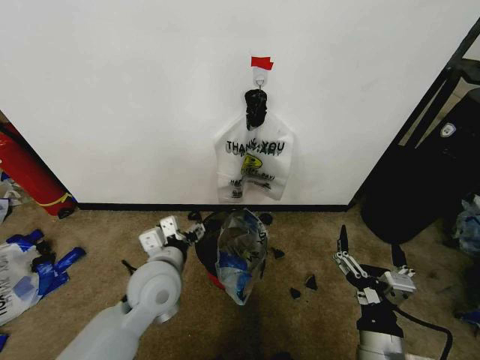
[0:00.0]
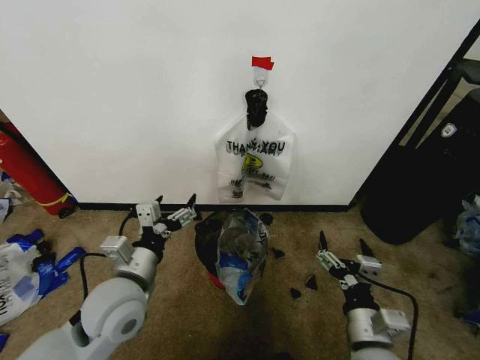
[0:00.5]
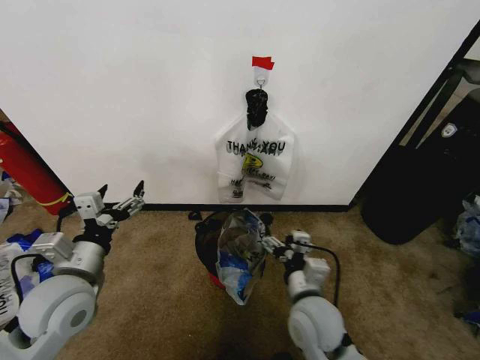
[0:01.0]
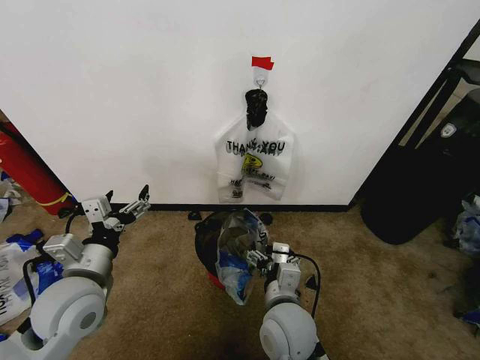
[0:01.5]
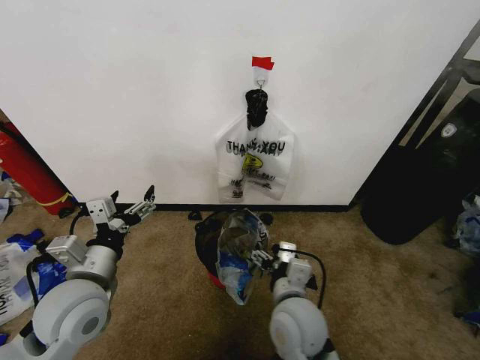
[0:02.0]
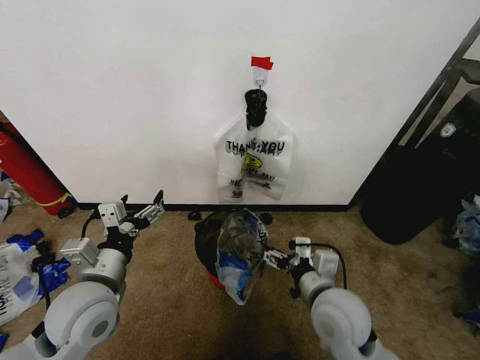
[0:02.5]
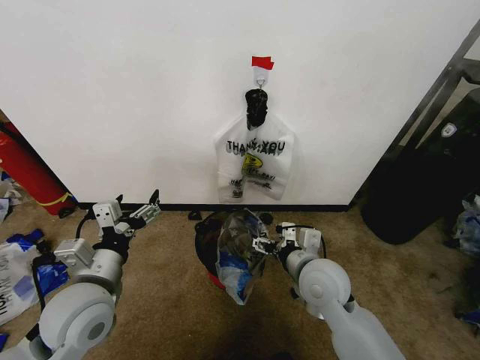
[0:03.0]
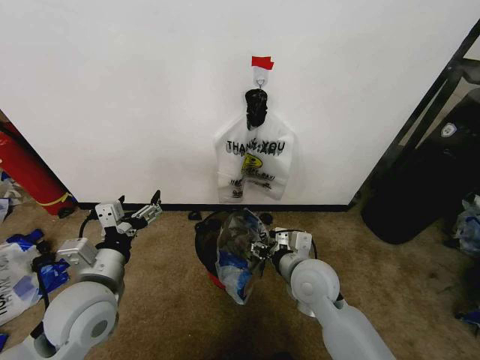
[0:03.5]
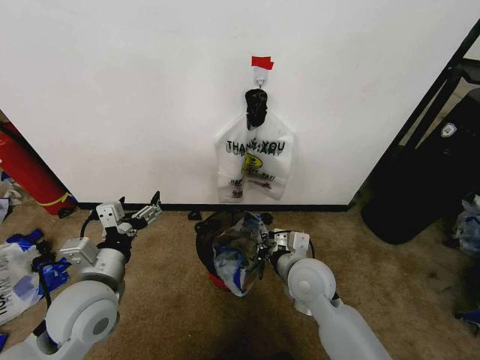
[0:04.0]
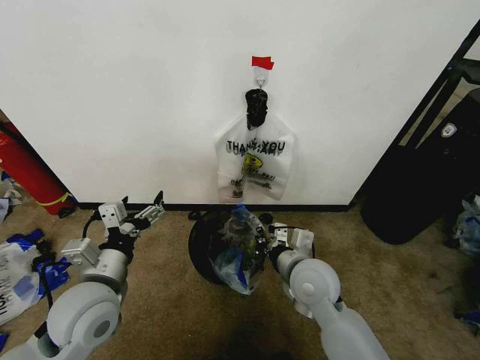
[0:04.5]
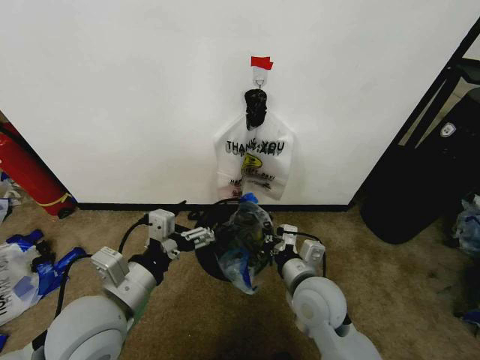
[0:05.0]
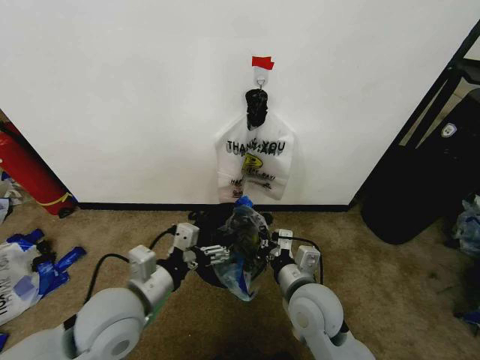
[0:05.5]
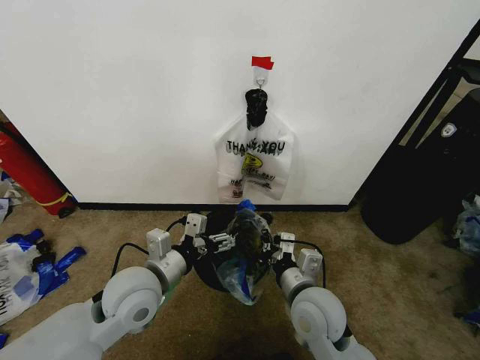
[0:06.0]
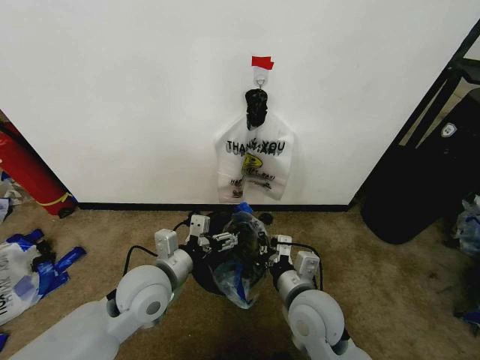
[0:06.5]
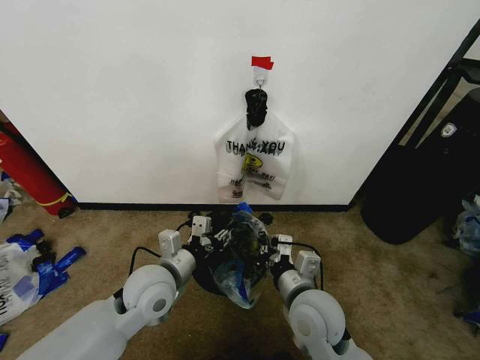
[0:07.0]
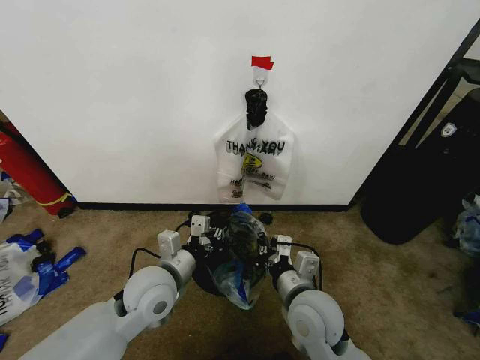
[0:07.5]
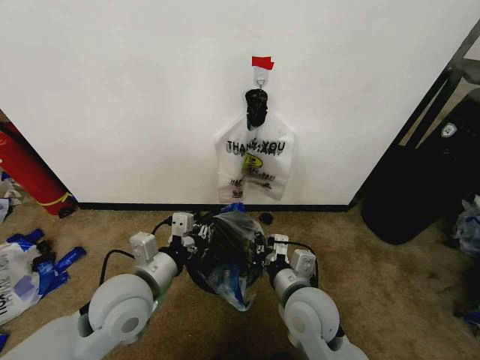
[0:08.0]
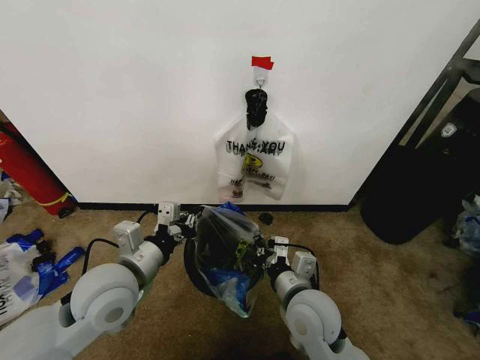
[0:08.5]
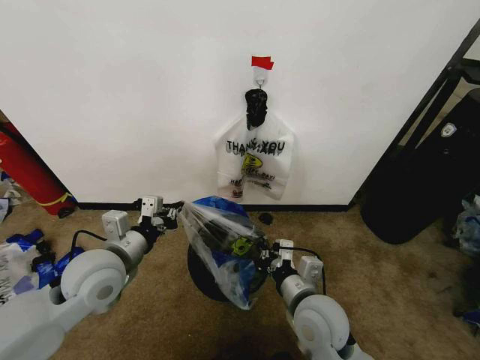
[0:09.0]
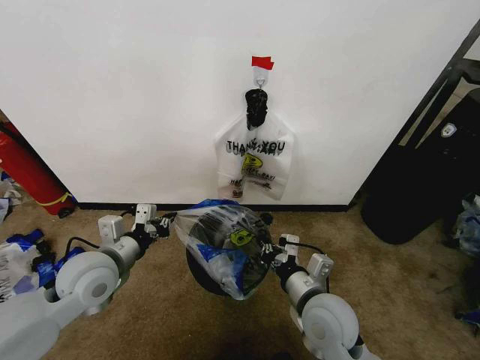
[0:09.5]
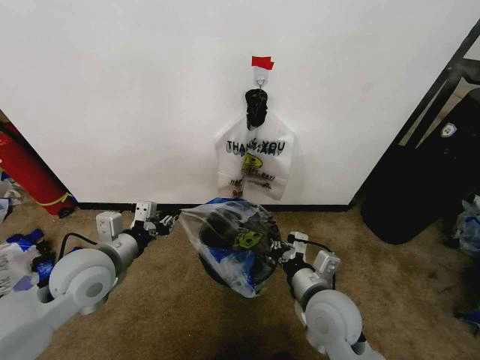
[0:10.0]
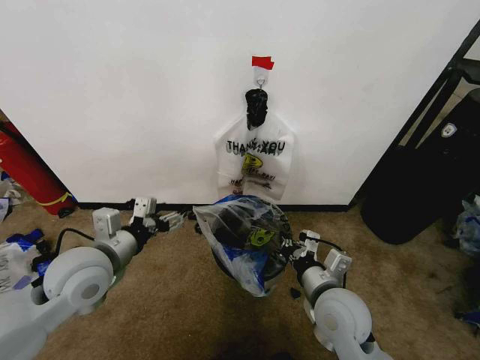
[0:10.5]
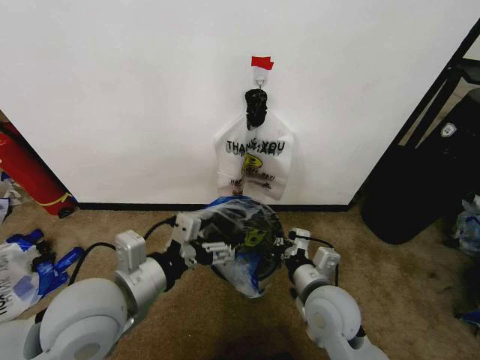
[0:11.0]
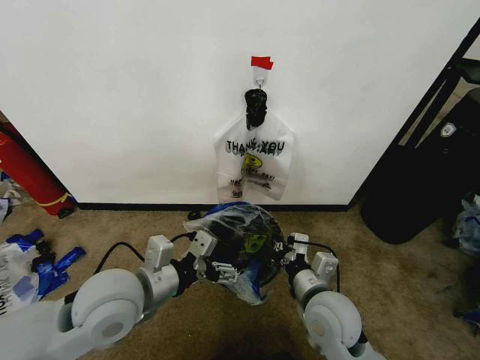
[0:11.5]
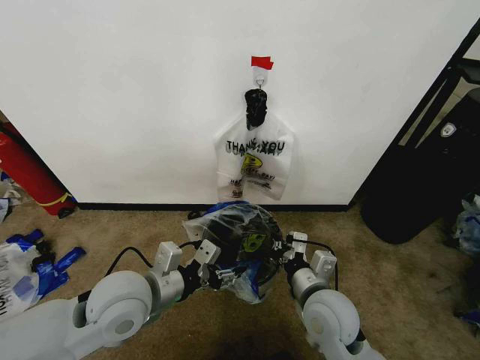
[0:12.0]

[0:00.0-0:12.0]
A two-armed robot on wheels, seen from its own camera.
Task of the whole recording: Pick up the garbage bag from the wall and place it over the trash bin.
0:00.0 to 0:02.0: The left gripper shifts approximately 10 cm to the left and backward. The right gripper travels to the left and forward by about 15 cm.
0:02.0 to 0:04.0: The right gripper moves forward, roughly 10 cm, and closes its fingers.
0:04.0 to 0:06.0: The right gripper goes approximately 5 cm backward. The left gripper is displaced to the right by some 5 cm.
0:06.0 to 0:08.0: The left gripper closes up.
0:08.0 to 0:10.0: The left gripper shifts roughly 10 cm to the left.
0:10.0 to 0:12.0: The left gripper heads to the right, covering about 10 cm, and opens and closes again.

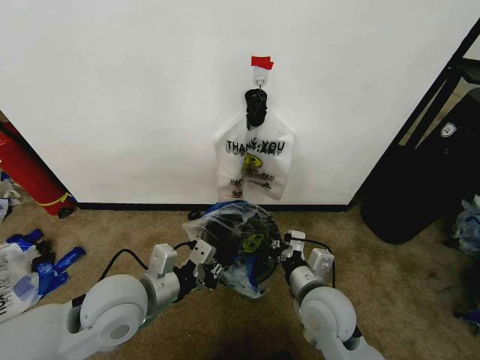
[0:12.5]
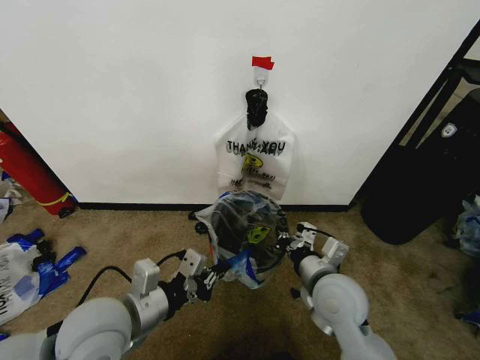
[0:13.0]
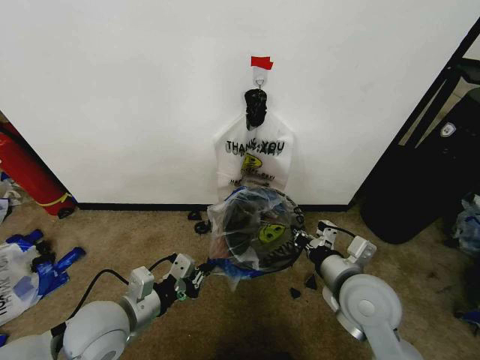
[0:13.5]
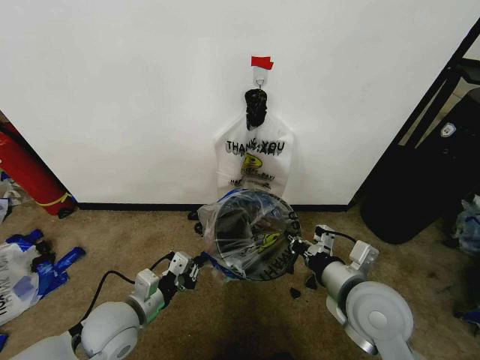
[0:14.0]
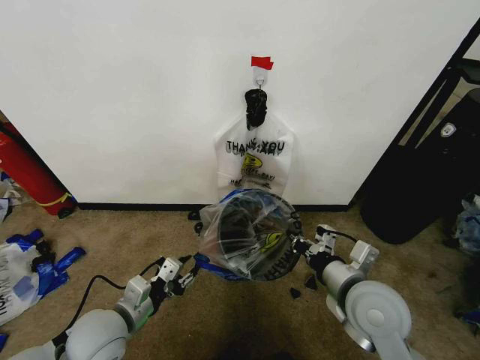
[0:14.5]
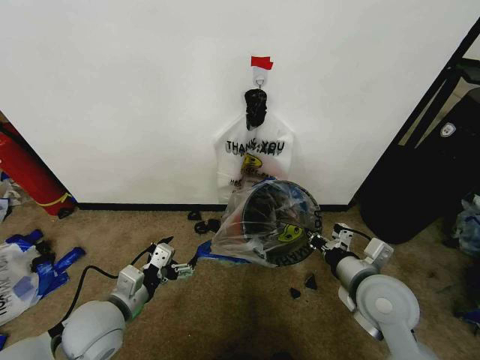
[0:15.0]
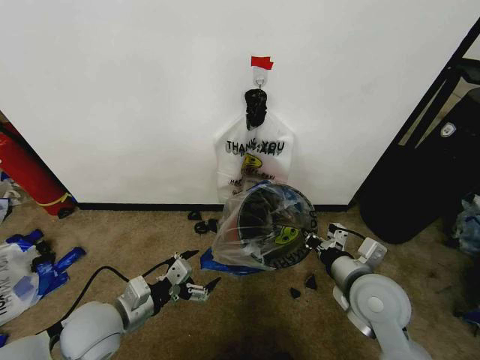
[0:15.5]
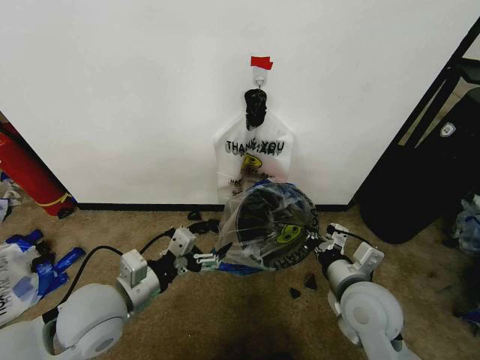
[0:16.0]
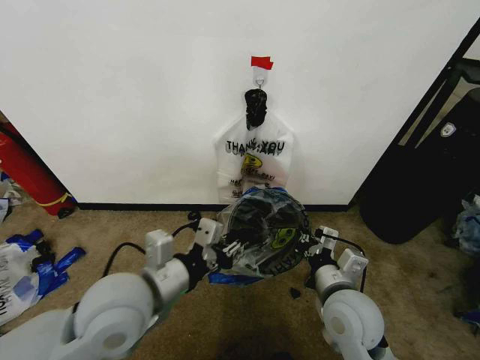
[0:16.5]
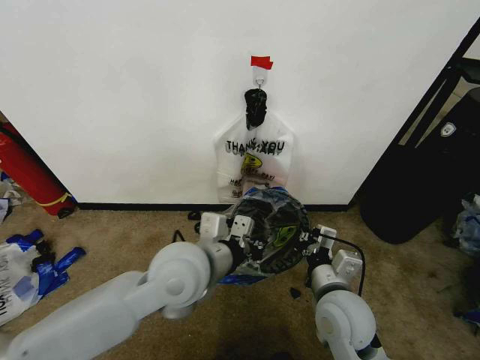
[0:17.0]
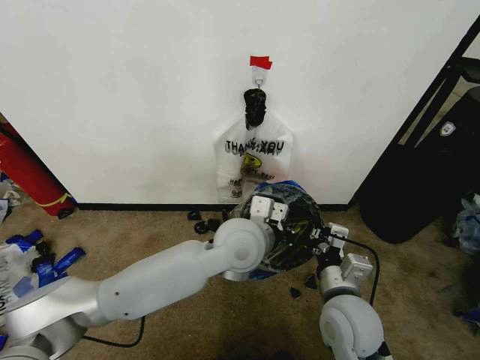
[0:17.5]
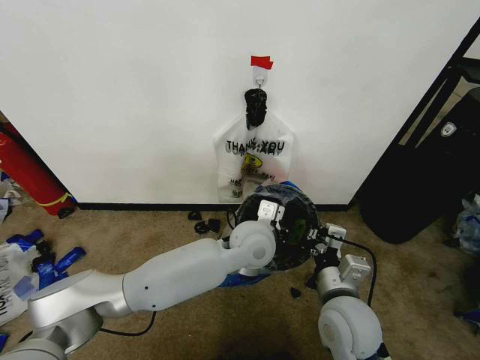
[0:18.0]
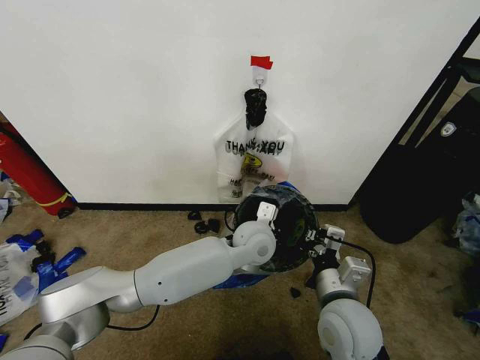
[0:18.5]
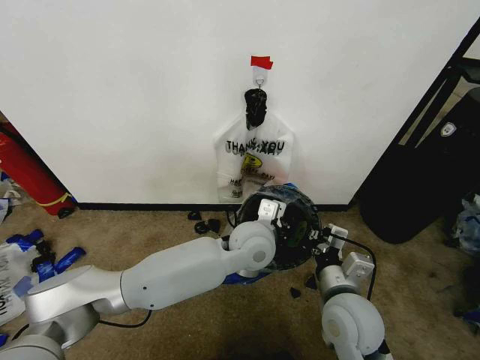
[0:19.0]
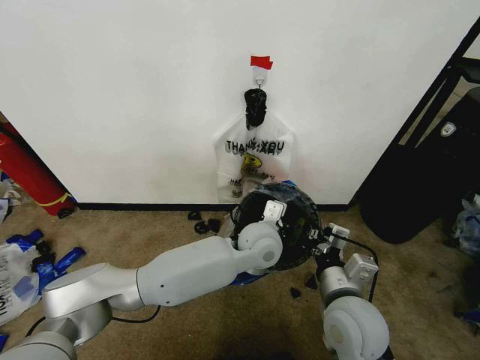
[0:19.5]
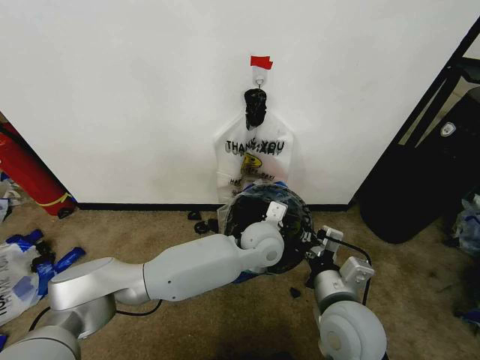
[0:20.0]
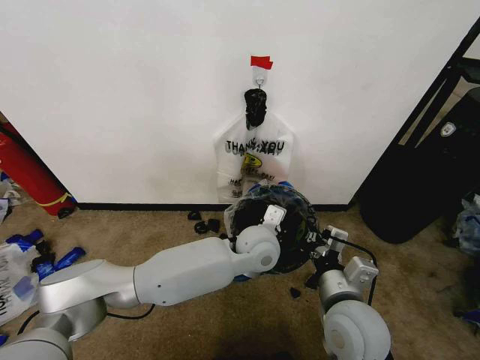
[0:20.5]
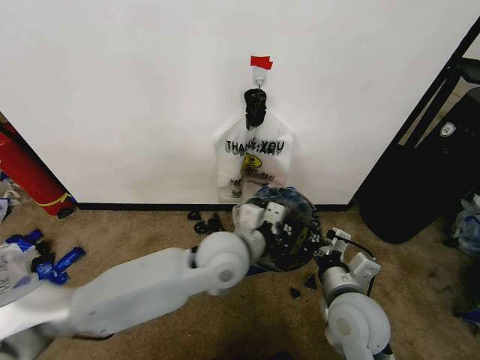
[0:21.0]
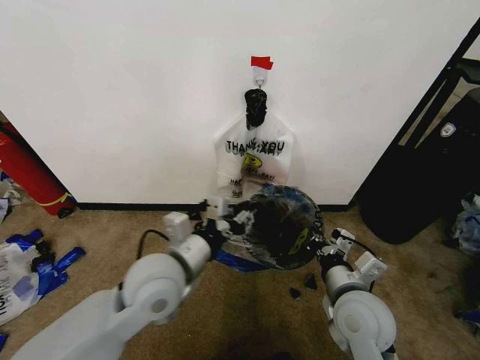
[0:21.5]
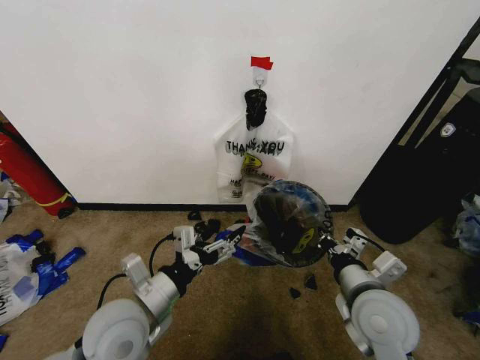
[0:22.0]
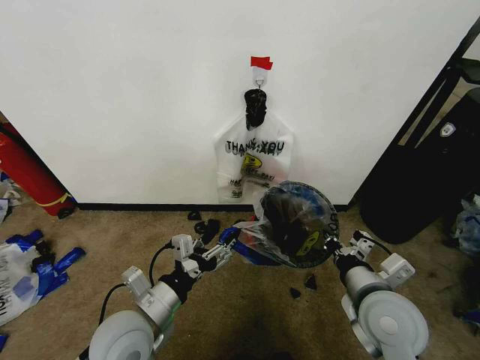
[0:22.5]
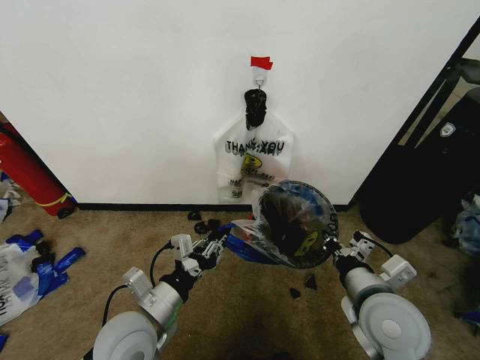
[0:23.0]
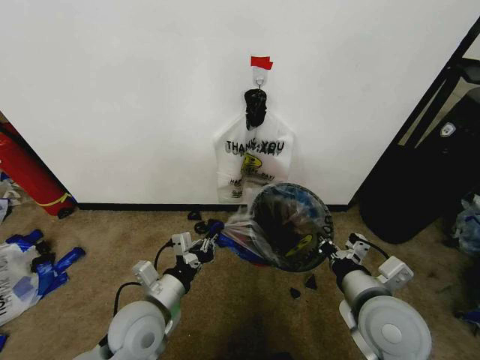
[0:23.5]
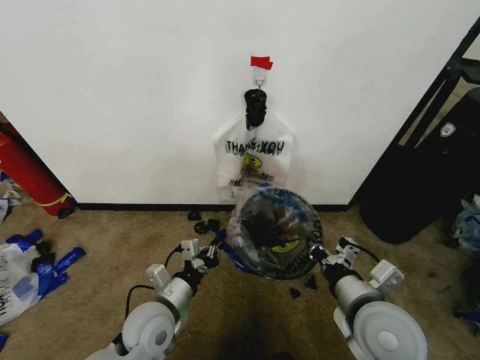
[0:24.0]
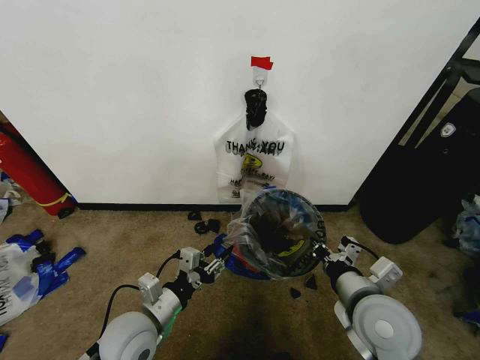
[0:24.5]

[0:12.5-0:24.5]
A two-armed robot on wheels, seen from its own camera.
Task of the whole recording: Pick up the garbage bag from the wall and place it over the trash bin.
0:12.5 to 0:14.5: The left gripper travels downward and to the left by some 10 cm; the right gripper is displaced to the right and upward by approximately 10 cm.
0:14.5 to 0:16.5: The left gripper goes some 15 cm upward and to the right, and opens and closes again.
0:16.5 to 0:18.5: The left gripper heads to the right, forward and downward, covering about 30 cm, and closes its fingers.
0:18.5 to 0:20.5: The grippers make only small movements.
0:20.5 to 0:22.5: The left gripper goes some 30 cm to the left and backward, and opens its fingers, while the right gripper heads to the right, covering roughly 5 cm.
0:22.5 to 0:24.5: The left gripper ends up some 5 cm from where it was, and closes, then opens again.

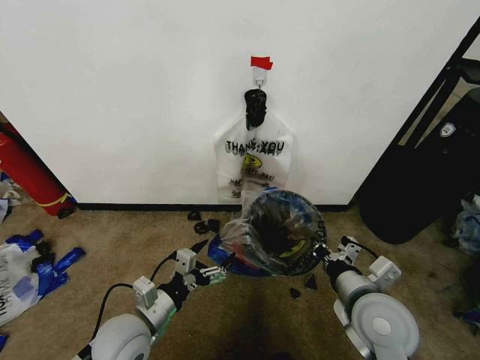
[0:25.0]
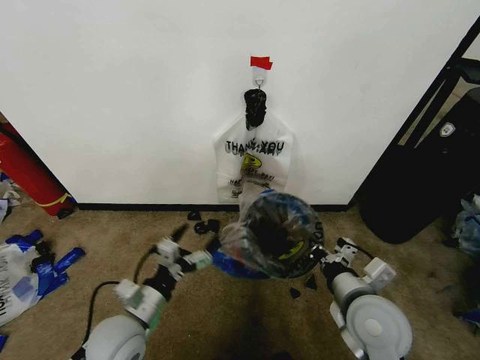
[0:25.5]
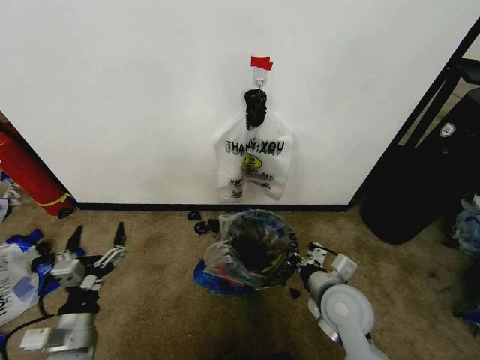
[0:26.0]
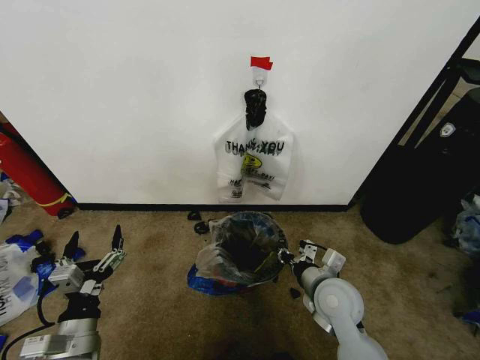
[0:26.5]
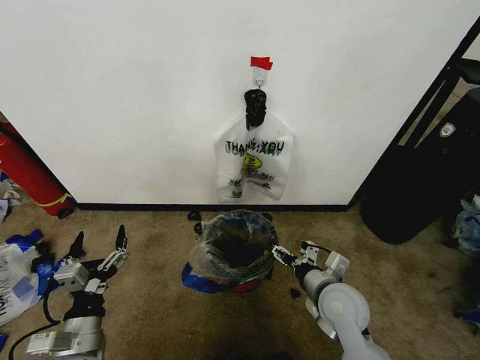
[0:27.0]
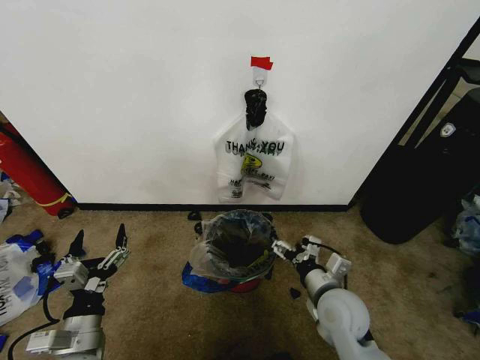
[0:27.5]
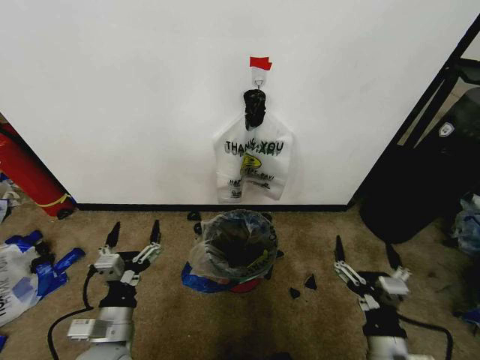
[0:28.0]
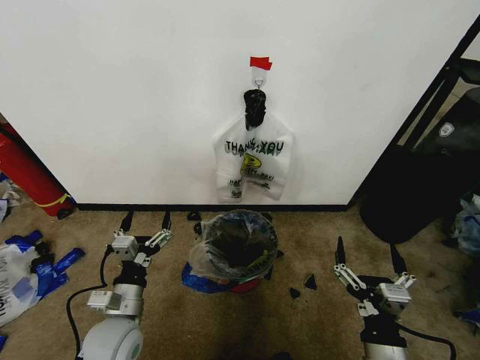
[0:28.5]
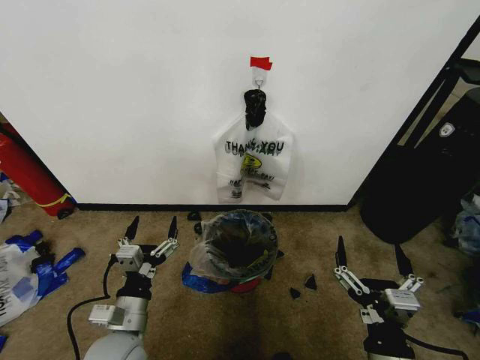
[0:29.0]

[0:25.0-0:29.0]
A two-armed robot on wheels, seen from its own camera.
Task of the whole recording: Pick up the garbage bag from the wall and place it over the trash bin.
0:25.0 to 0:27.0: The left gripper is displaced to the left and backward by about 10 cm. Meanwhile the right gripper shifts roughly 5 cm downward, and opens its fingers.
0:27.0 to 0:29.0: The right gripper shifts roughly 20 cm backward. Meanwhile the left gripper is displaced to the right by about 5 cm.
